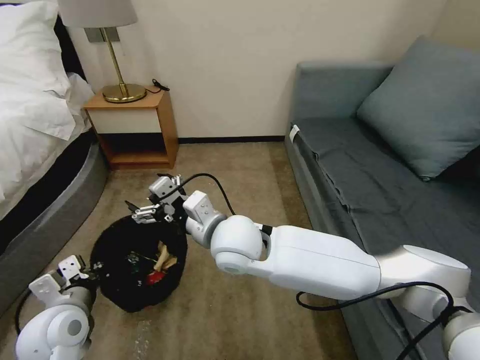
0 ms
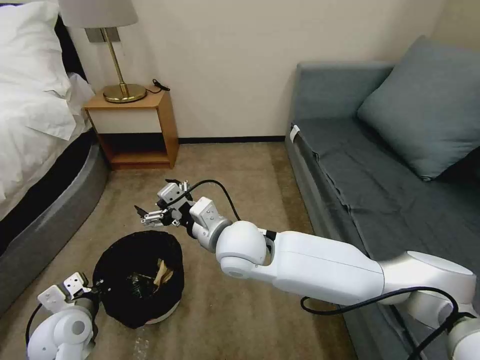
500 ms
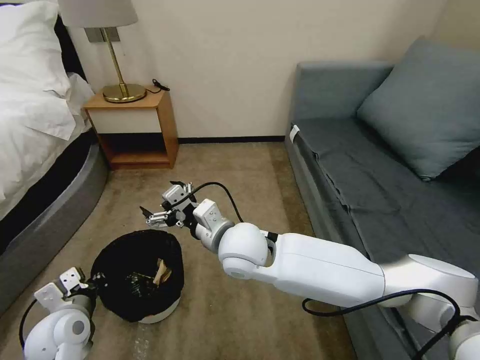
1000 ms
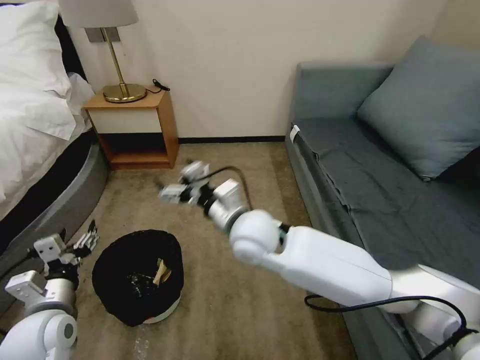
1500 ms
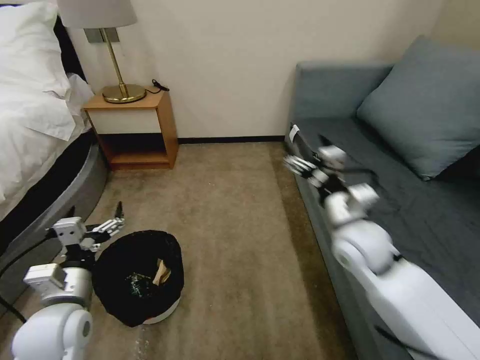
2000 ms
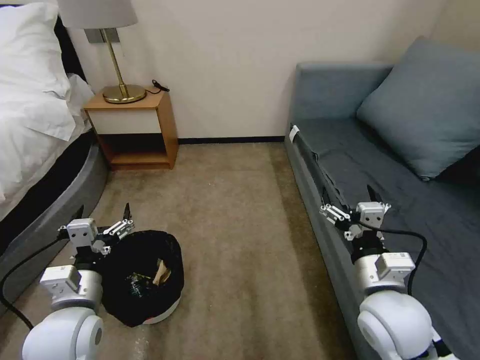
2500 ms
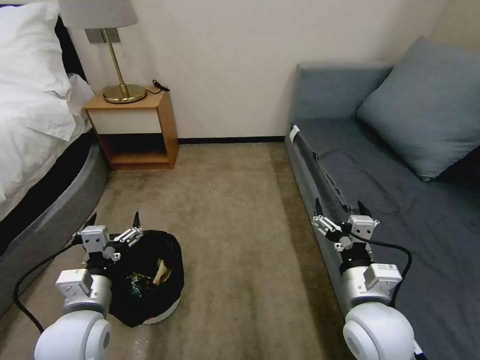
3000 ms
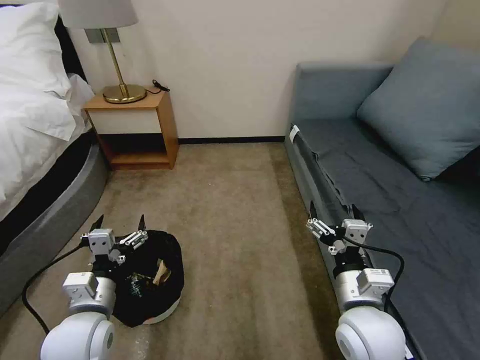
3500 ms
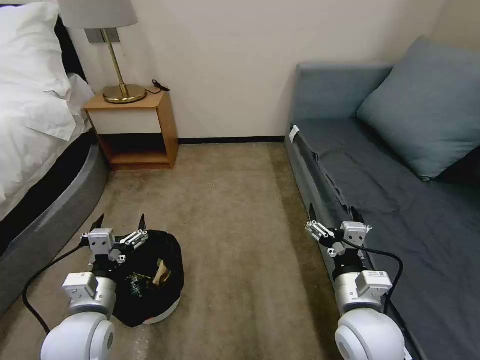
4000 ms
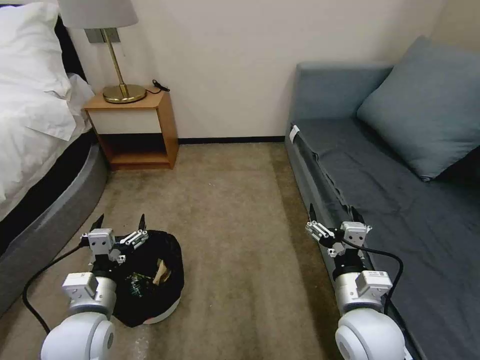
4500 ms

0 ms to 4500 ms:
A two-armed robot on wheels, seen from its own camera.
Task of the whole recording: Pick up the trash bin, then pick up the garbage on the floor and place it into the trash bin.
0 ms to 2000 ms: The left gripper opens its fingers. The right gripper heads to the right, covering approximately 25 cm.
2000 ms to 4500 ms: The right gripper shifts approximately 15 cm backward and downward.
